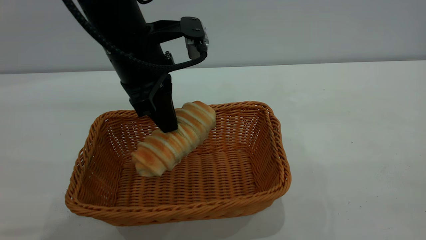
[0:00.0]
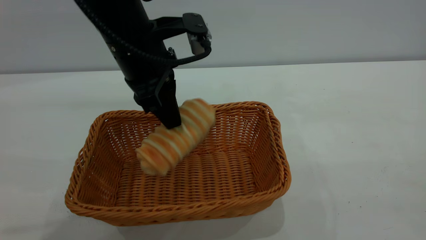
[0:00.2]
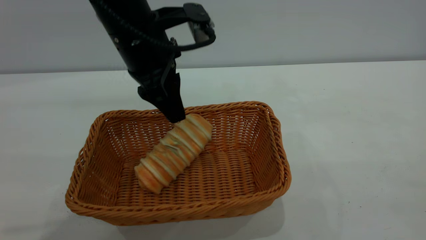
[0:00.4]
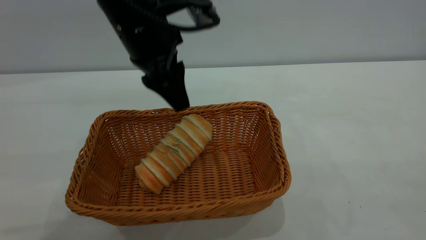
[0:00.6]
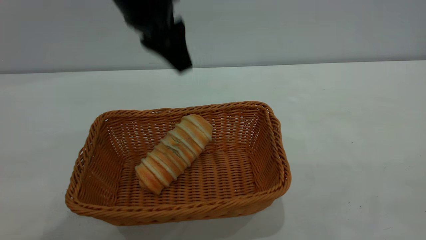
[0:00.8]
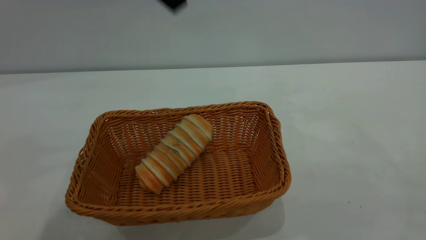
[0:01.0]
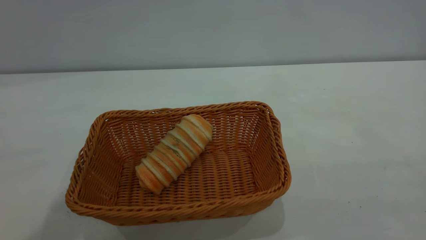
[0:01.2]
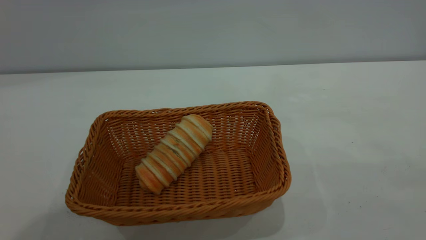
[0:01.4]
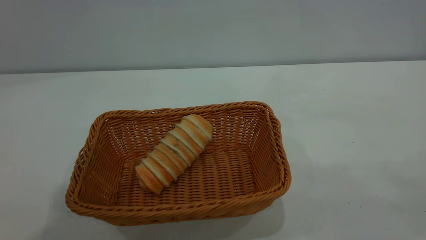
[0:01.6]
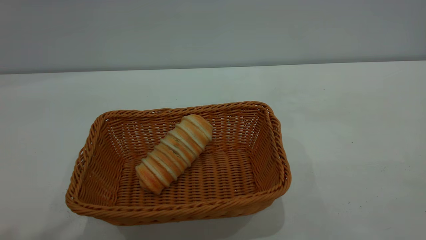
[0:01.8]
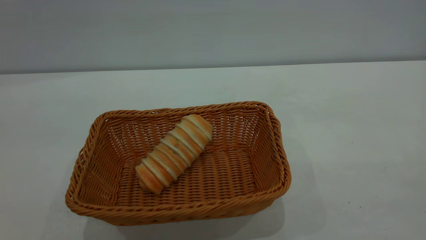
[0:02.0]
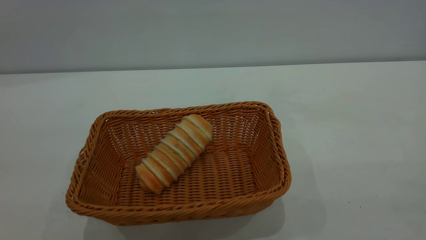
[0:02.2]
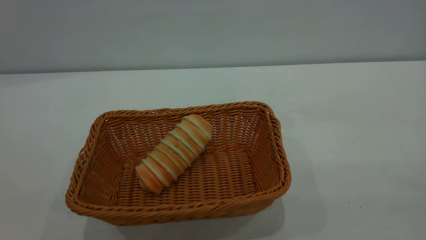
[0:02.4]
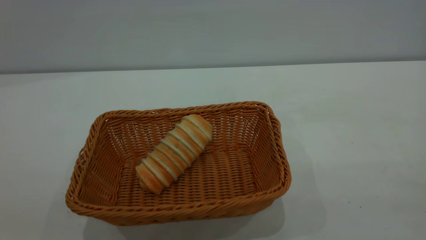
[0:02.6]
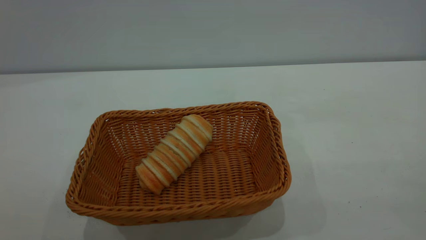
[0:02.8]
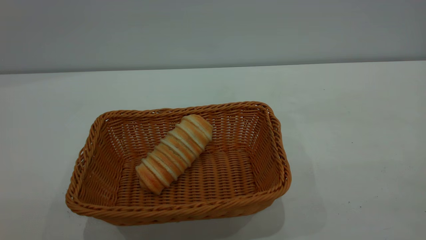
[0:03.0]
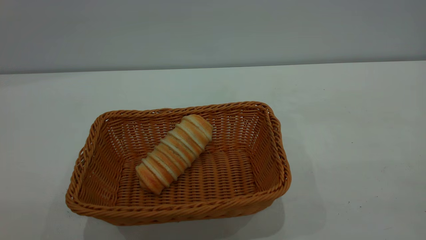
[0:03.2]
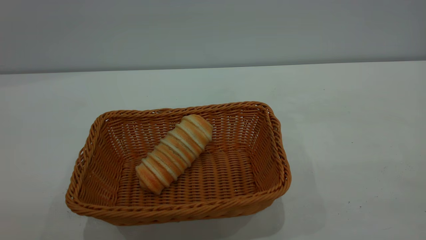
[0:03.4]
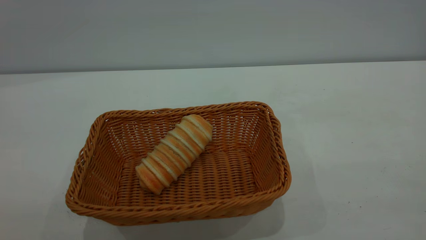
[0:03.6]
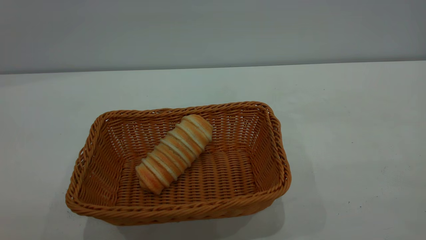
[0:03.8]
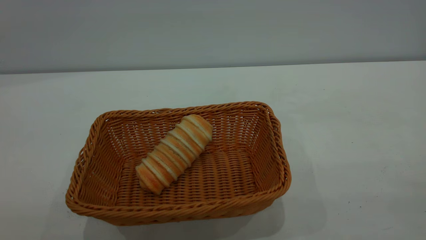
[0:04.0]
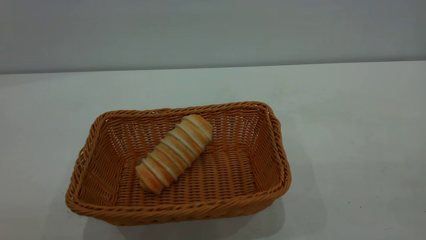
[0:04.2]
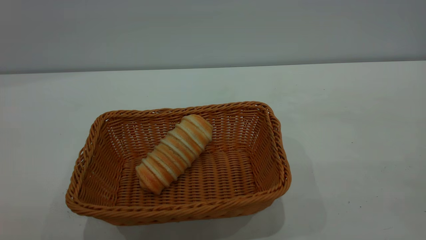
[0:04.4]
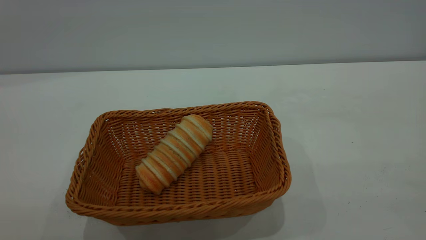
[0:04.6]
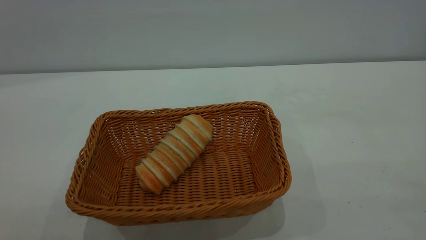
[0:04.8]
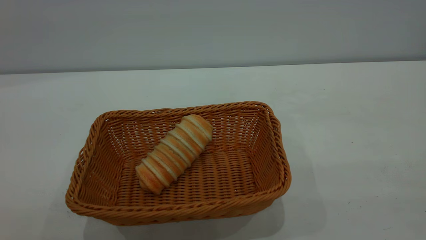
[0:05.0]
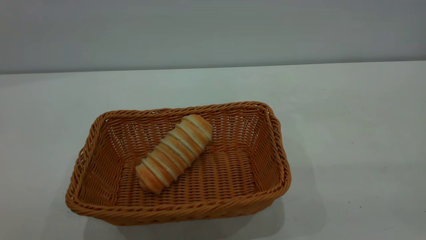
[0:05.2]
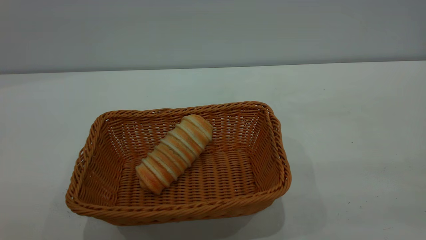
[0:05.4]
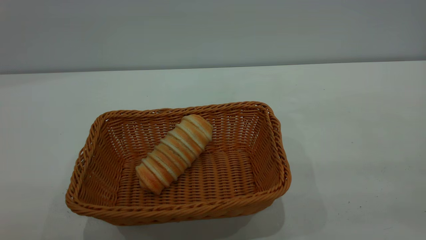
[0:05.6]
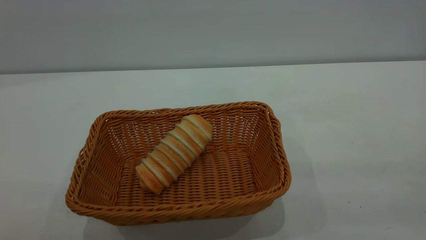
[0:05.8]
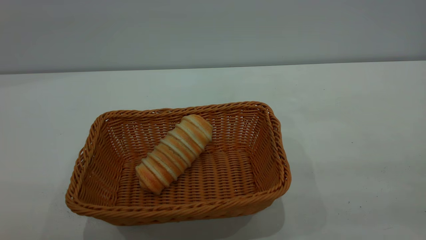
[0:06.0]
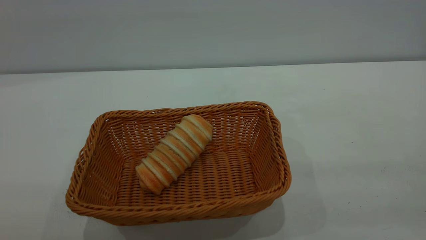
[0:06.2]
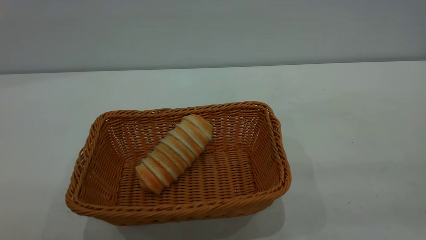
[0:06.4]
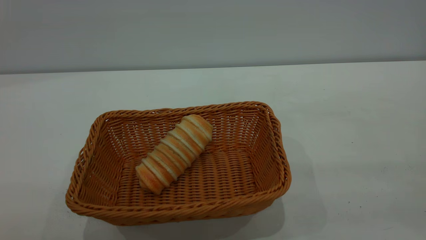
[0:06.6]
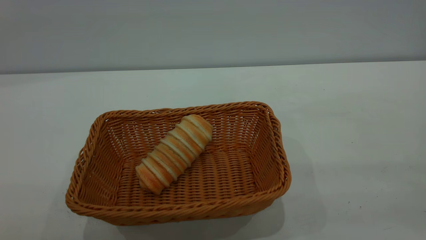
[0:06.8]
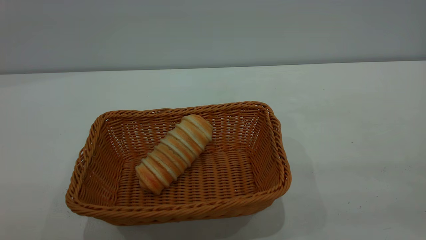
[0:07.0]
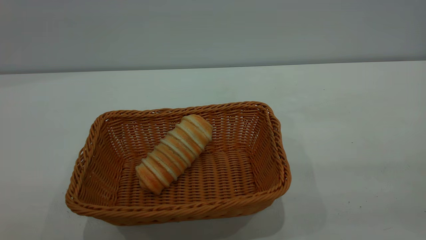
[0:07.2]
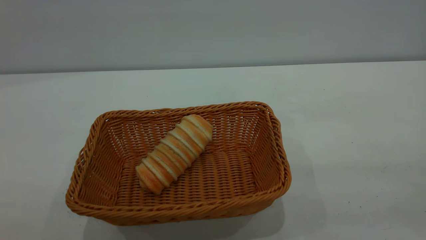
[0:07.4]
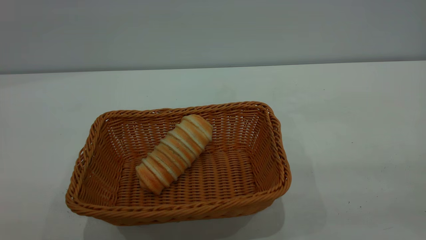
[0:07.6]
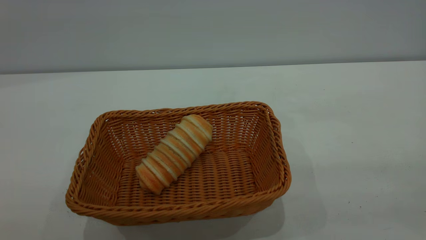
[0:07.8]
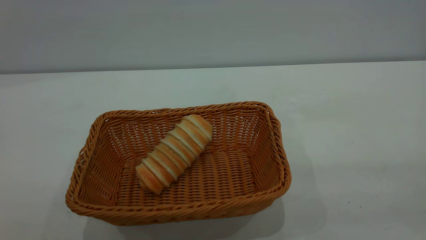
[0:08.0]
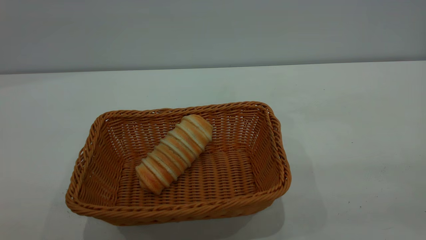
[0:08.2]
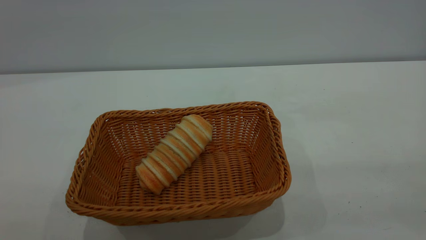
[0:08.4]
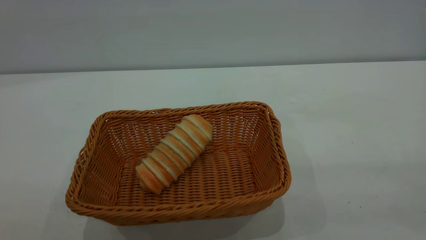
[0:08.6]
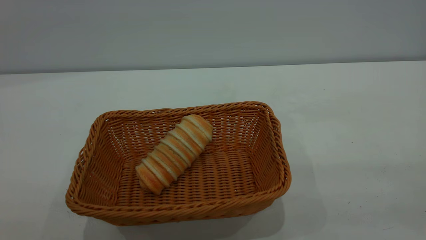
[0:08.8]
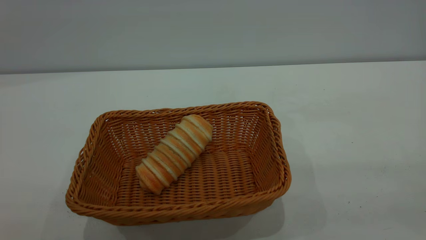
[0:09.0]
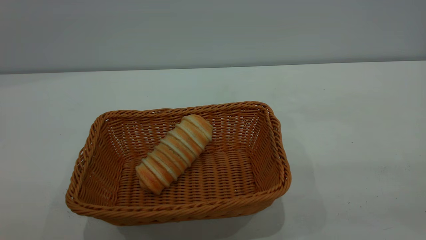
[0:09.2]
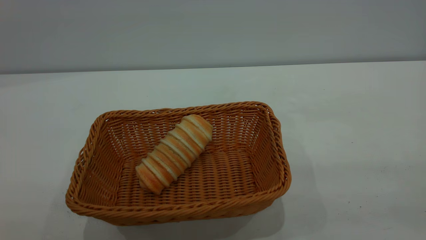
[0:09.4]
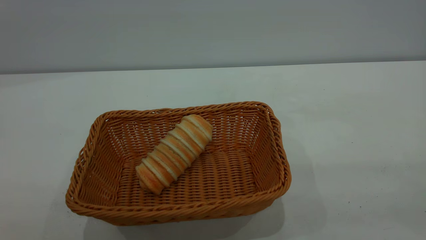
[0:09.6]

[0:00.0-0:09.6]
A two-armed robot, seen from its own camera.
Task of the whole recording: One hand grasps the yellow basket and places it in the middle of the table, while the other hand picks up the long bread and puts it into the yellow basket.
0:00.0 to 0:01.6: The left gripper heads upward and backward, covering some 35 cm, and opens its fingers.
0:08.0 to 0:09.6: The two grippers keep their place.
